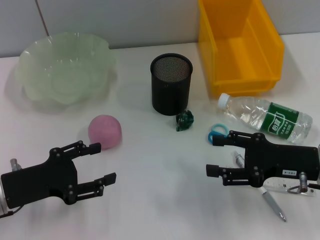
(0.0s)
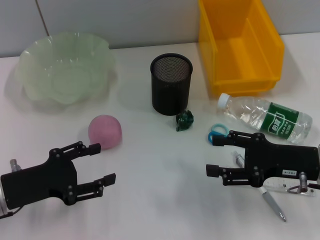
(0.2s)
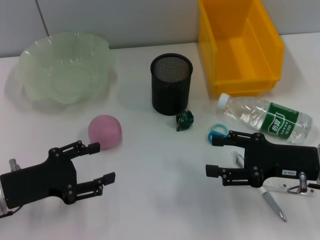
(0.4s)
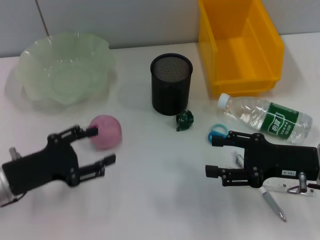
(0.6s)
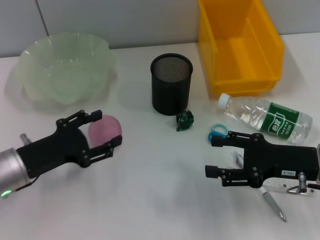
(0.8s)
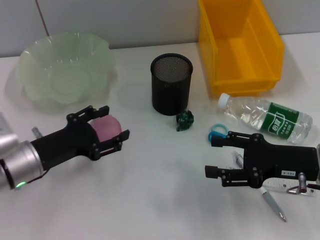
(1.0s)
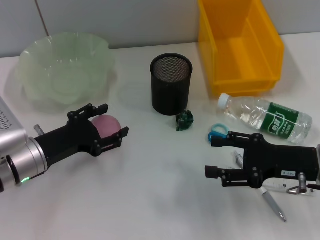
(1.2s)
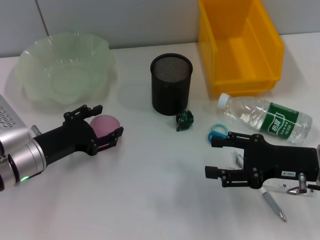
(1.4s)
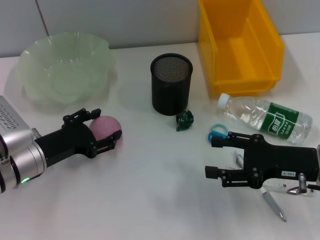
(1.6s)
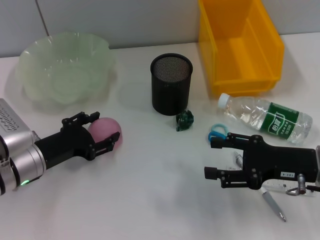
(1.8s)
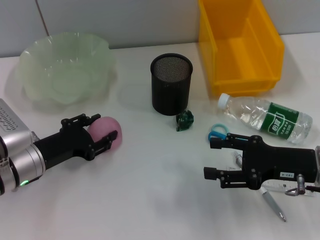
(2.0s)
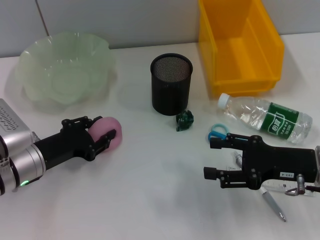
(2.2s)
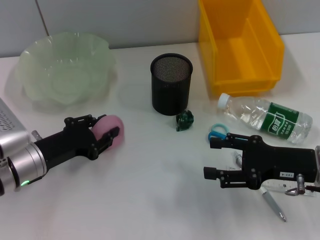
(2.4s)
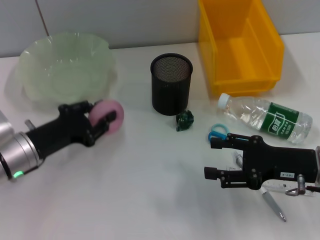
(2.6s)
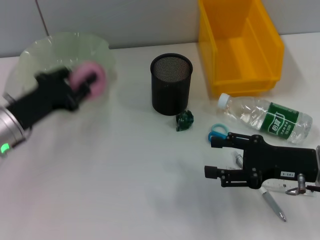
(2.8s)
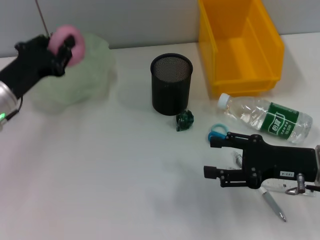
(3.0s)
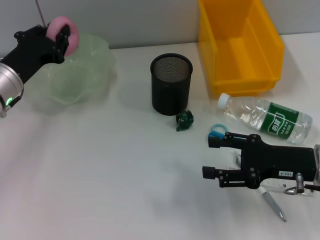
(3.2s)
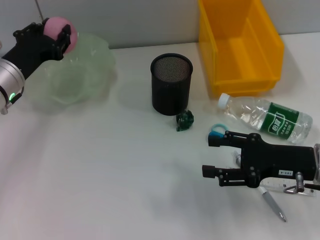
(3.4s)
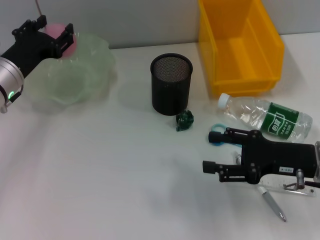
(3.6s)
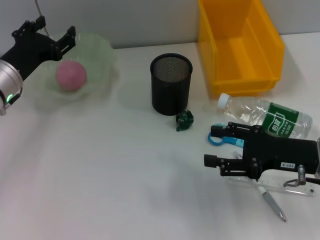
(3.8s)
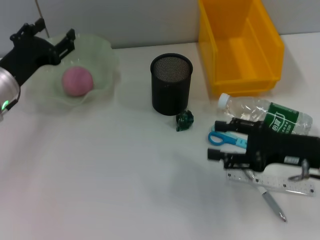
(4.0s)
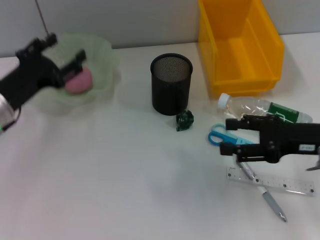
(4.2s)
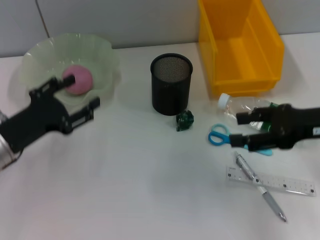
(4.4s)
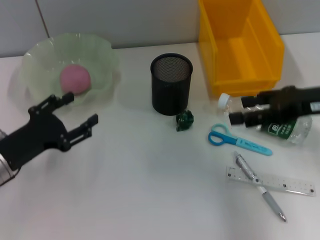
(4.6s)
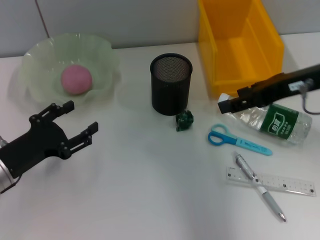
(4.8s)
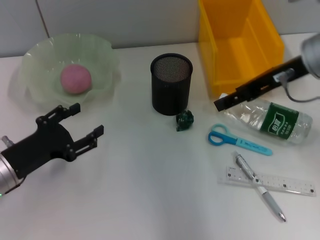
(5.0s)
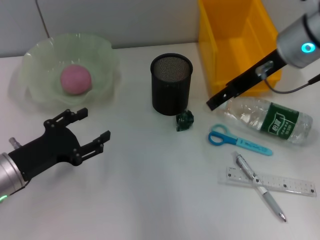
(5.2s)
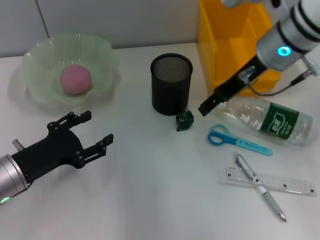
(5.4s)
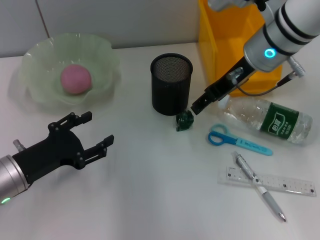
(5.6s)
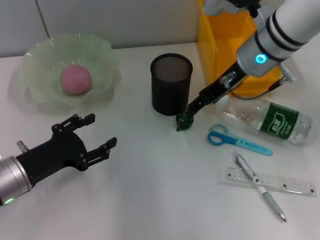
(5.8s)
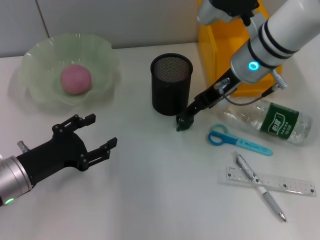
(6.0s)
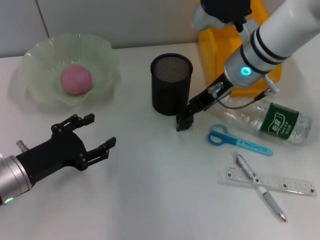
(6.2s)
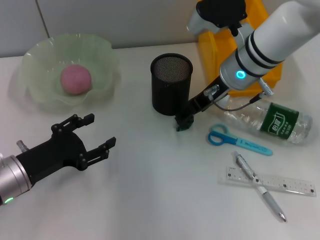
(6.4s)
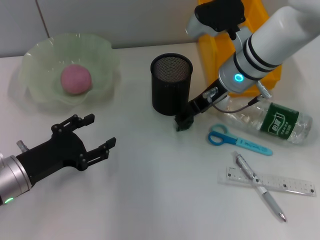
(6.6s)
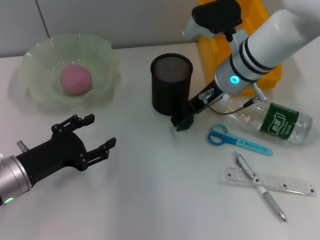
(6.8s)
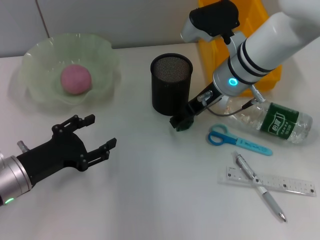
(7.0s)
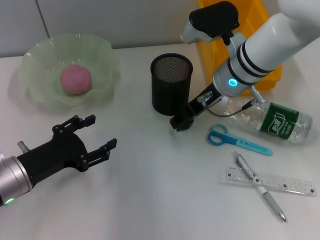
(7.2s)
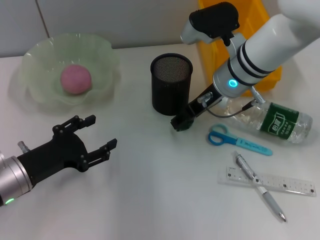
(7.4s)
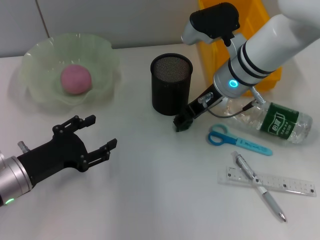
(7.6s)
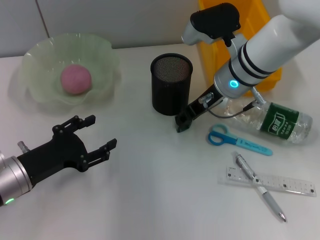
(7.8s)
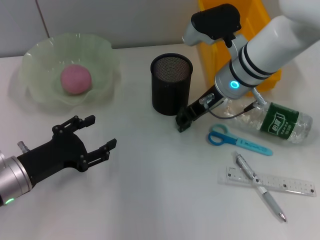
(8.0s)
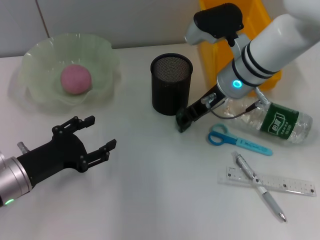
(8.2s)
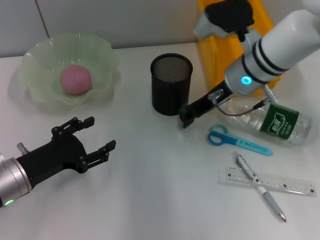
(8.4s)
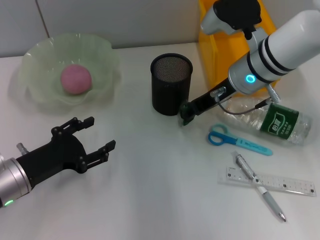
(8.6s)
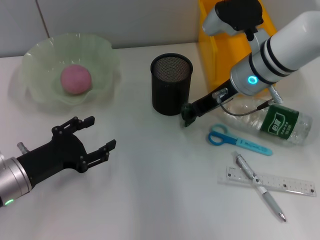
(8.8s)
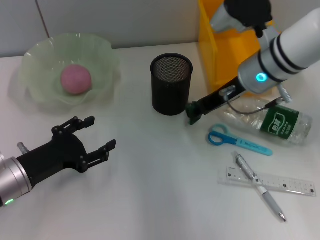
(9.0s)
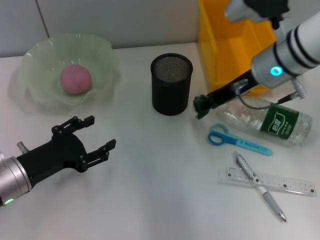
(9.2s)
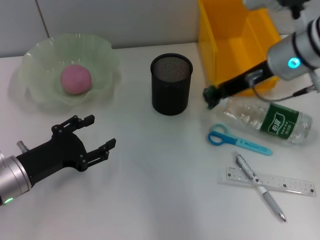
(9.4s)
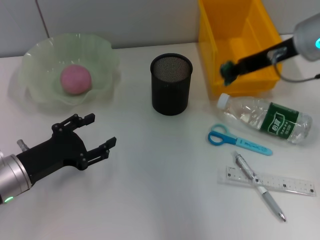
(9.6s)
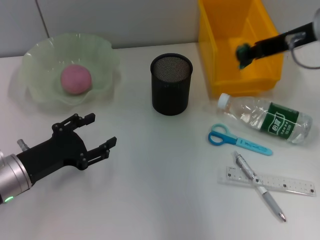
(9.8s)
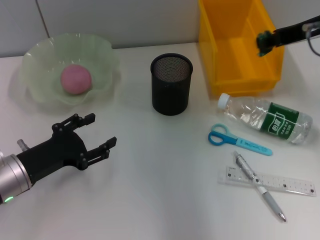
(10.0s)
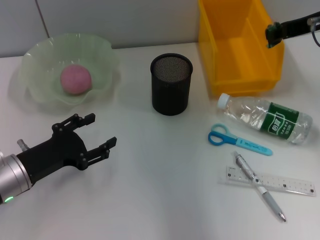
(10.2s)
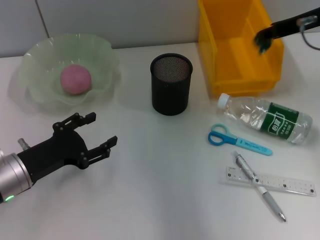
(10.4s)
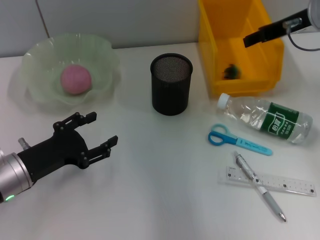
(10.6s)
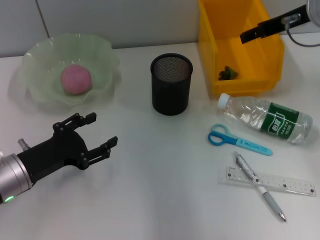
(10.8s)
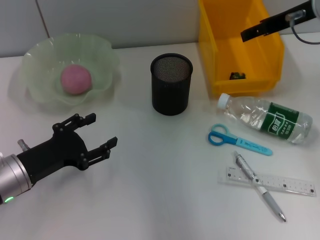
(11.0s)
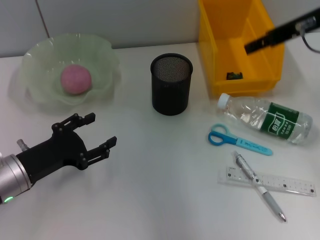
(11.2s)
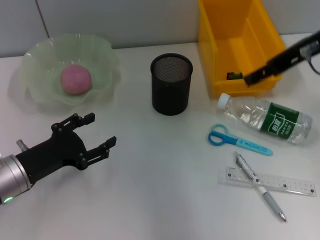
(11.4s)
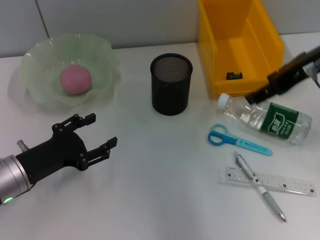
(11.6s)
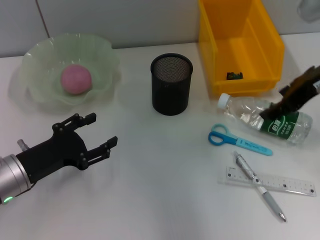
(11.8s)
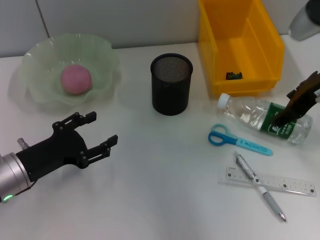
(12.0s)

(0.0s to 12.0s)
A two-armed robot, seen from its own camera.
Step, 0.0s - 2.2s: Grab the peach with the left hand.
Step, 2.4s - 4.0s: Place the peach into the fruit bowl with the left hand.
Step, 4.4s - 7.6s: Grab the plastic with the right hand.
Step, 8.0s - 10.8s: Place the plastic into the trash can with the right hand.
0.0s - 1.6s: The left gripper heads forward, covering some 5 cm.
1.6s - 3.0s: The left gripper is displaced upward and forward by roughly 10 cm, and closes.
3.0s - 4.4s: The left gripper travels backward by roughly 5 cm, and opens up; the right gripper is displaced upward by some 10 cm.
4.4s - 6.0s: The right gripper goes roughly 20 cm to the left and forward.
6.0s - 9.0s: The grippers make only small movements.
9.0s - 10.4s: The right gripper goes roughly 10 cm to the right and upward.
10.4s - 12.0s: The right gripper travels backward by about 5 cm, and opens its fingers.

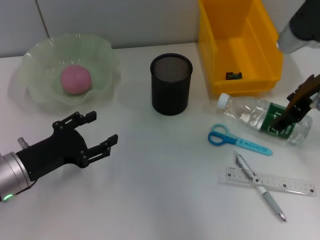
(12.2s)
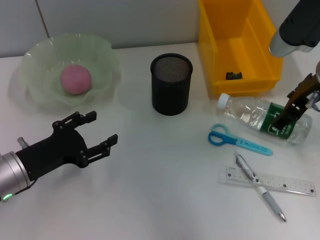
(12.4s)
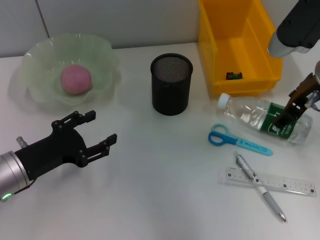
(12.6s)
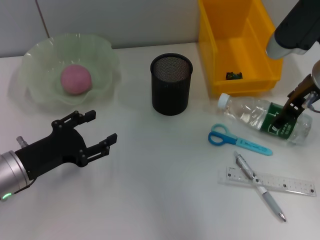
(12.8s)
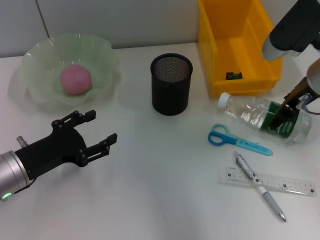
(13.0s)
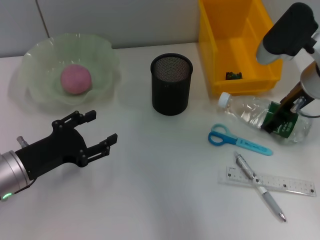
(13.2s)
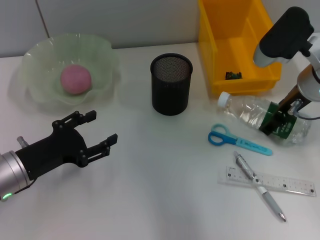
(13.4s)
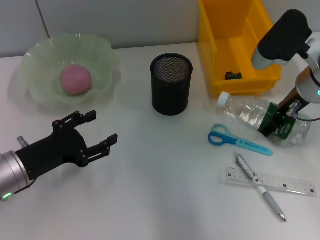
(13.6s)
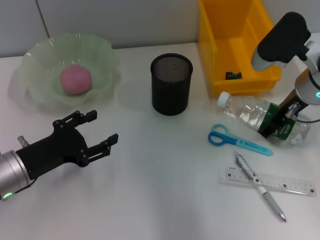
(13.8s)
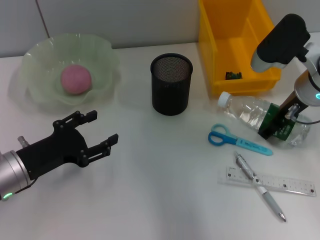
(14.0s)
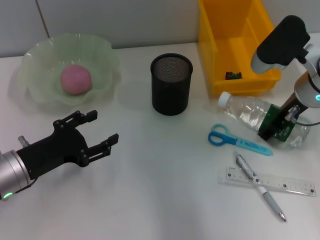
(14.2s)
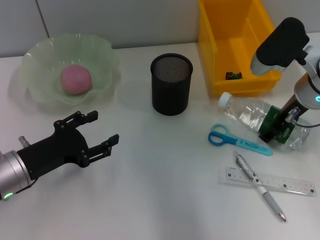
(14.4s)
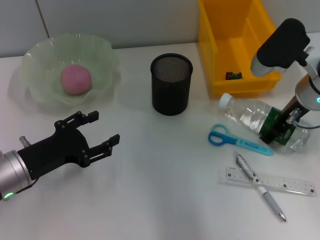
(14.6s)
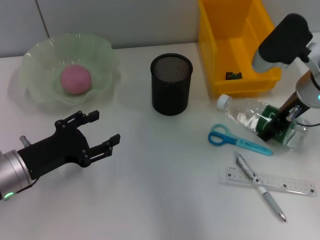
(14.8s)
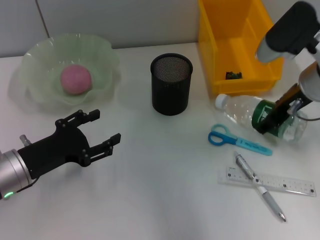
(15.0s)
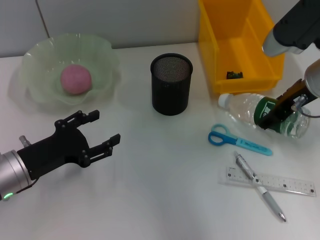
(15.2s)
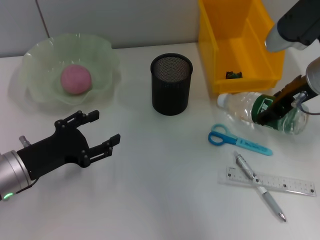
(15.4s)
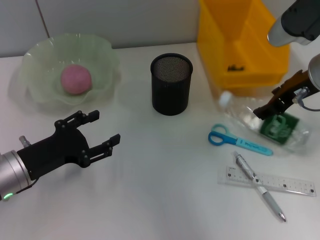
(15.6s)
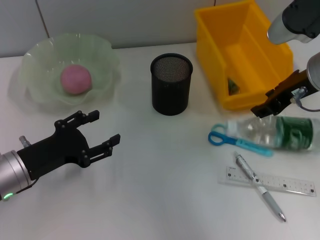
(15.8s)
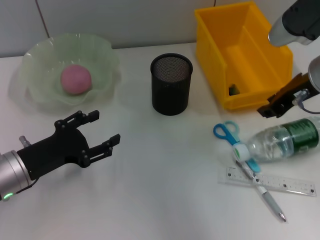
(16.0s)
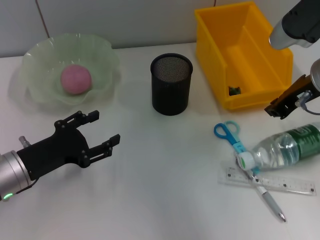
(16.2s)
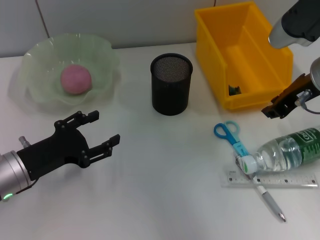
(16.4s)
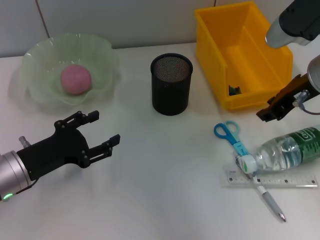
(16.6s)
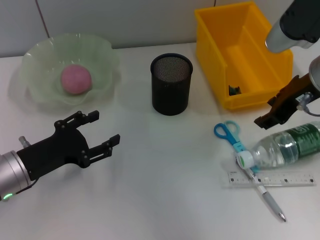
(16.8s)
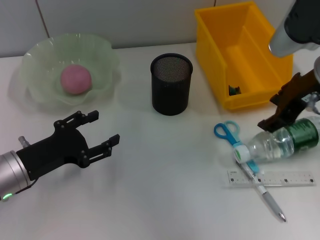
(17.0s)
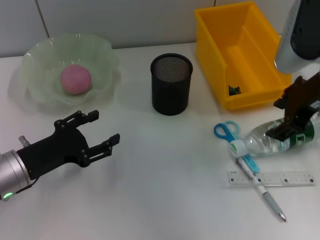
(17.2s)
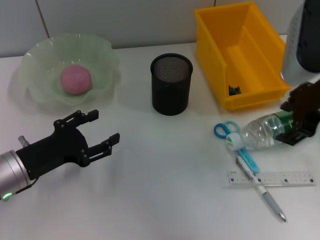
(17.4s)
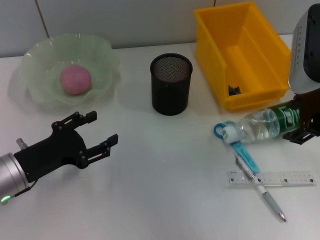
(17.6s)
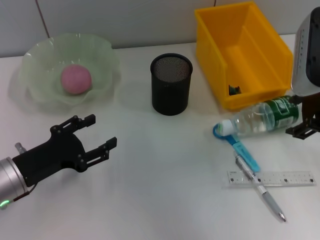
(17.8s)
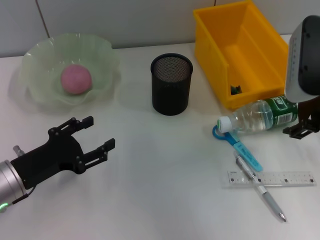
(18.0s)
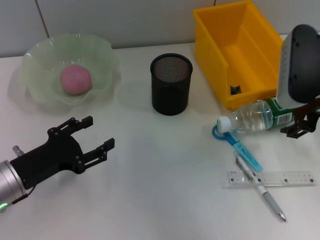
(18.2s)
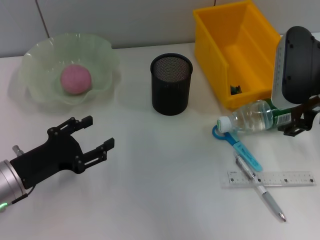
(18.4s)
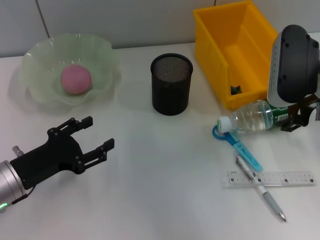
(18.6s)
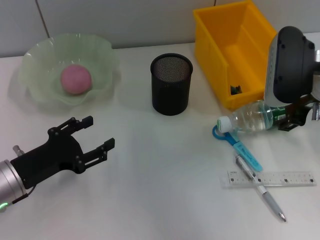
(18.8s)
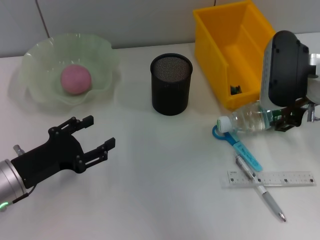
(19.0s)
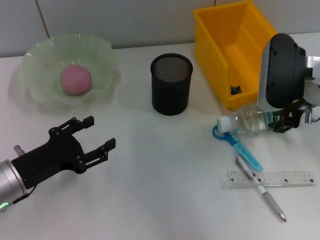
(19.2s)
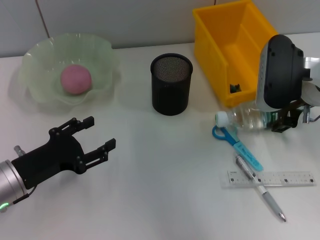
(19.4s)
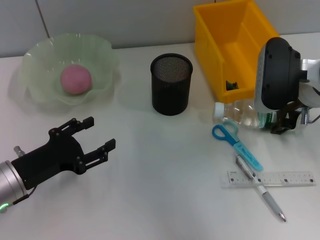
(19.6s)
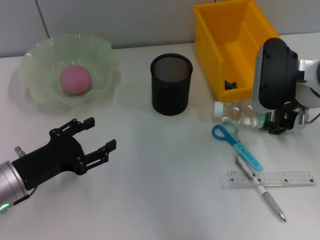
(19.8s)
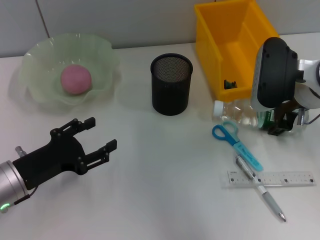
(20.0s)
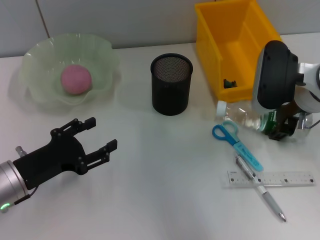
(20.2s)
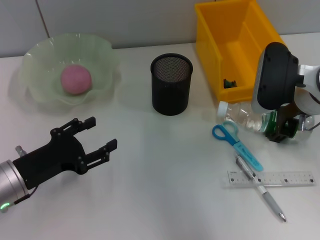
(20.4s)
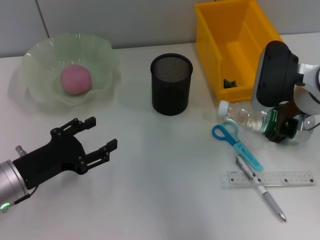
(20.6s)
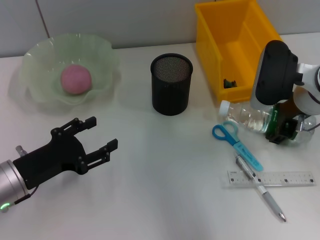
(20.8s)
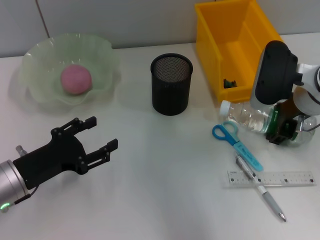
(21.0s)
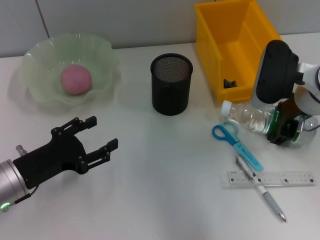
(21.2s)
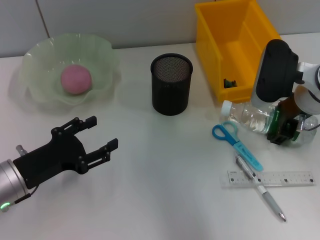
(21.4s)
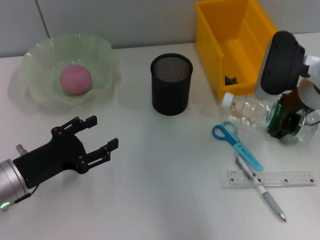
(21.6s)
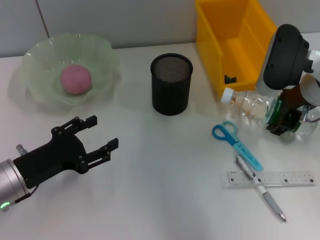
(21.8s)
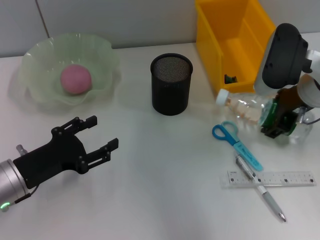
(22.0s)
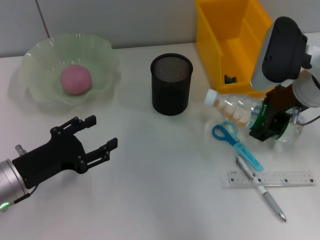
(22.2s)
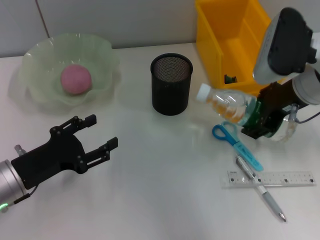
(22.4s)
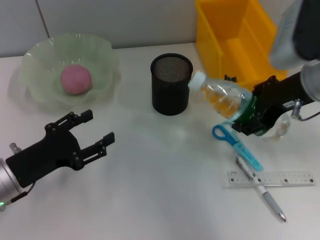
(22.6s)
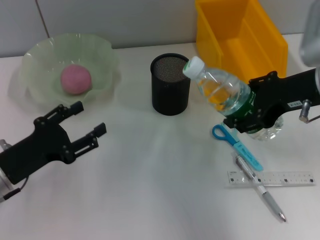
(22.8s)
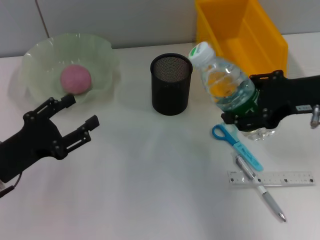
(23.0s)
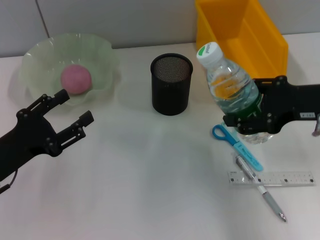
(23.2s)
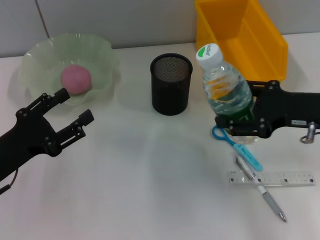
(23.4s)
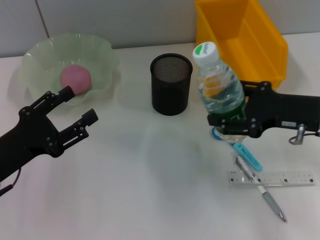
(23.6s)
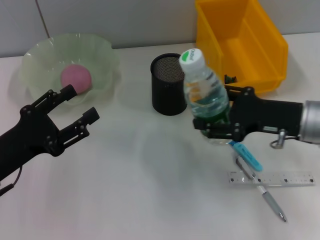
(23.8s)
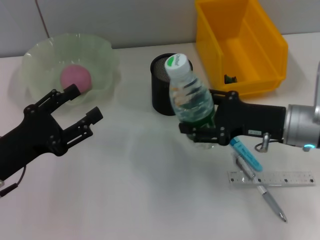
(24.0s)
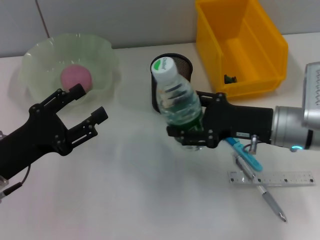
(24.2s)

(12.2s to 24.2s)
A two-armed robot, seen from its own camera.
Step, 12.2s - 21.0s: Grab the water bottle with the right hand.
12.2s - 13.8s: The right gripper shifts some 5 cm downward.
13.8s - 15.2s: The grippers move only a little.
15.2s - 16.6s: The right gripper closes.
16.6s - 18.2s: The right gripper opens its fingers.
18.2s - 21.2s: The grippers make only small movements.
21.2s - 22.6s: The right gripper heads upward, covering about 5 cm.
22.6s - 24.2s: The right gripper travels downward by some 10 cm.
